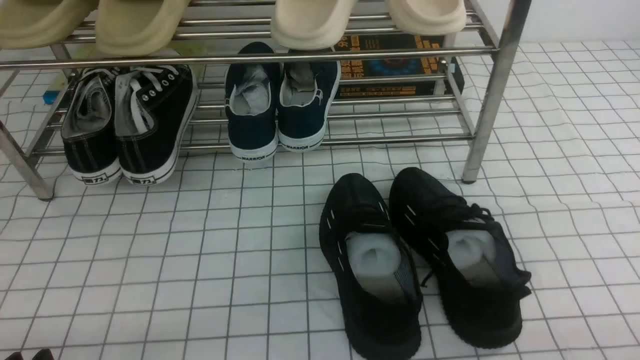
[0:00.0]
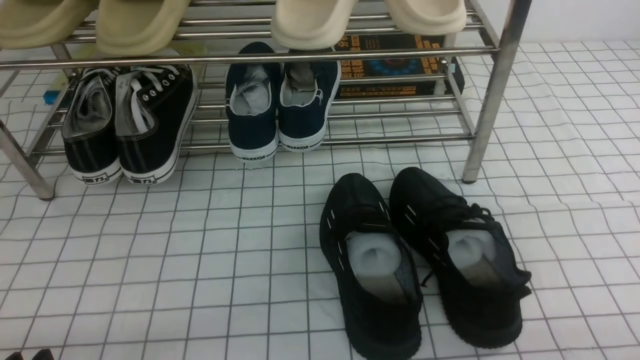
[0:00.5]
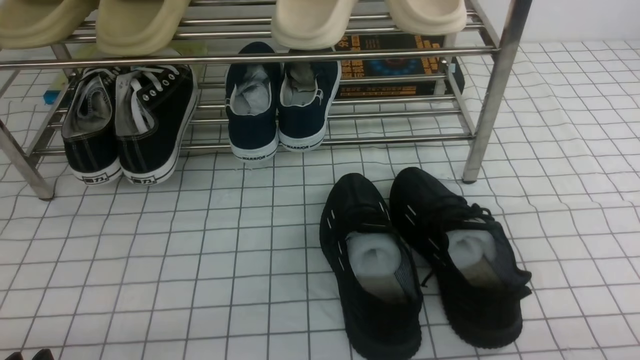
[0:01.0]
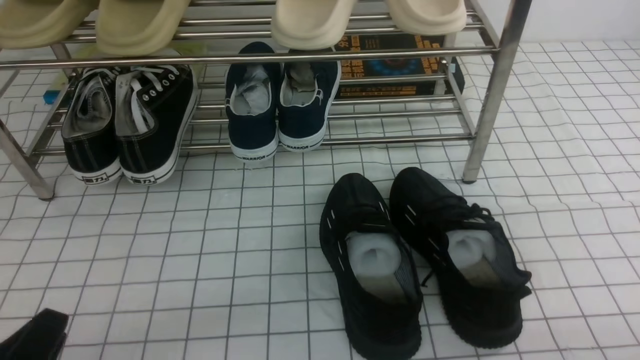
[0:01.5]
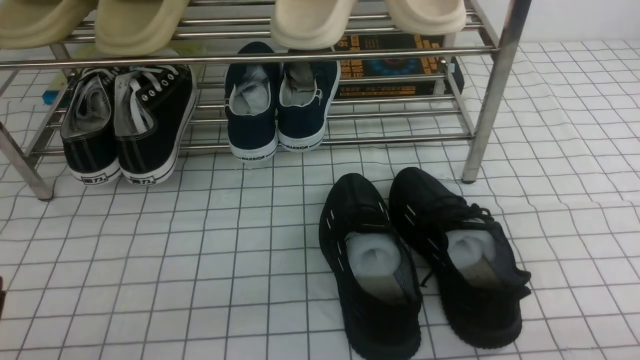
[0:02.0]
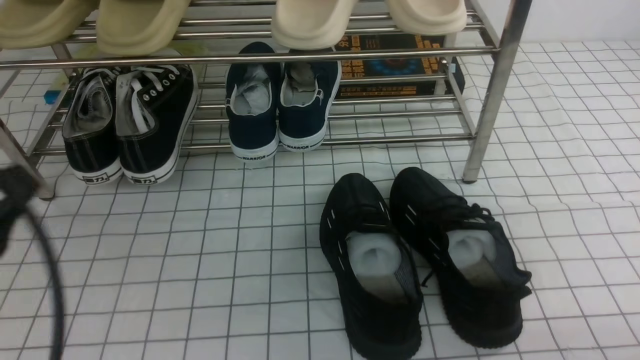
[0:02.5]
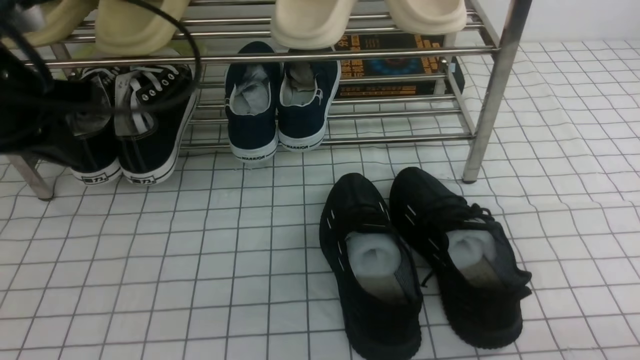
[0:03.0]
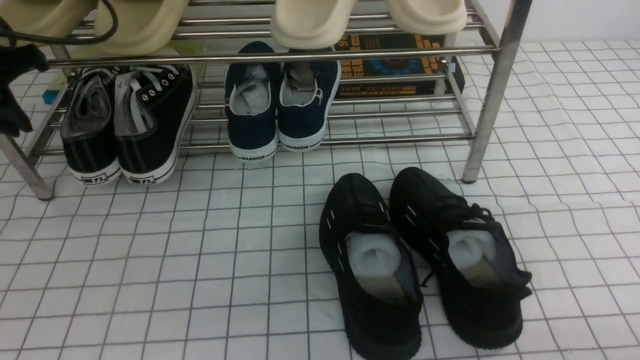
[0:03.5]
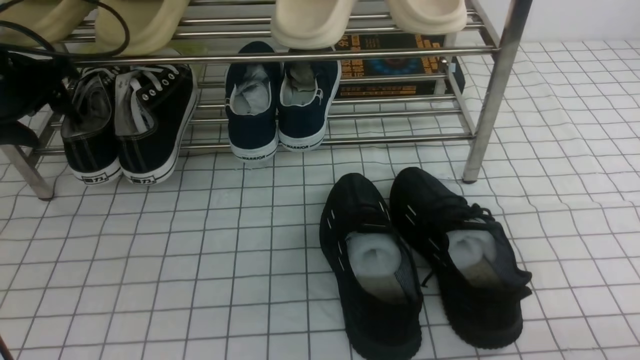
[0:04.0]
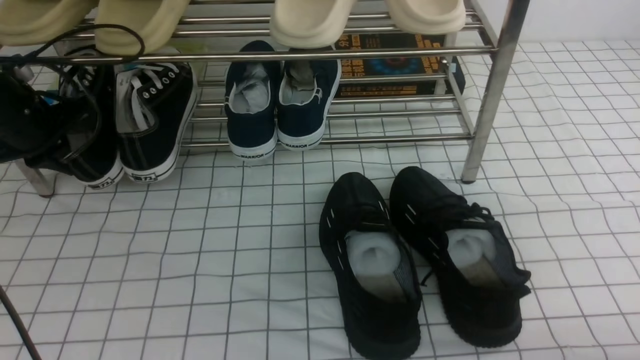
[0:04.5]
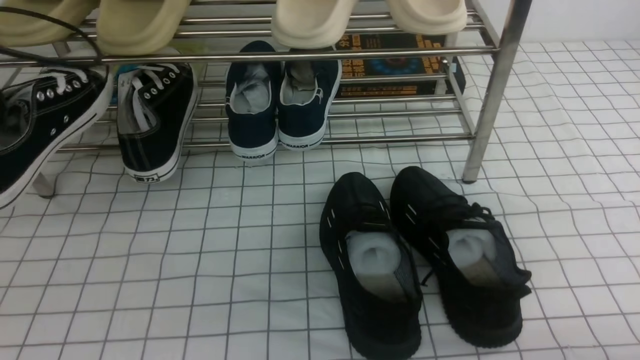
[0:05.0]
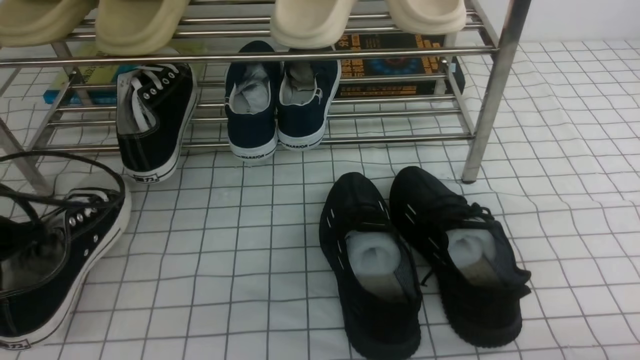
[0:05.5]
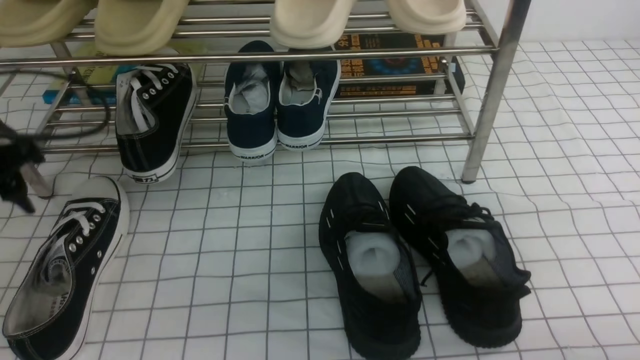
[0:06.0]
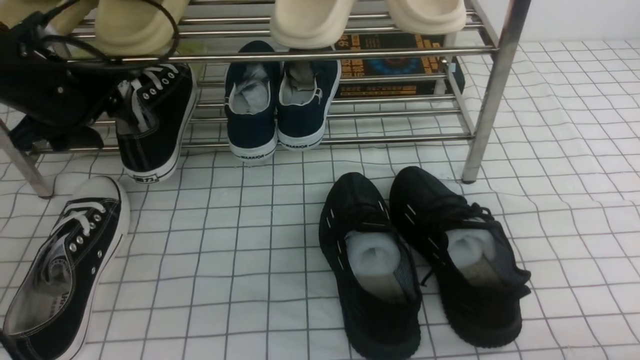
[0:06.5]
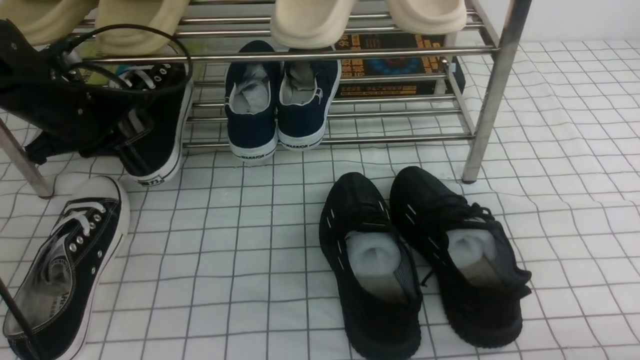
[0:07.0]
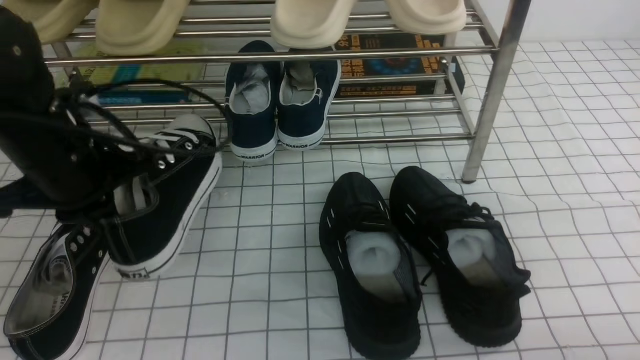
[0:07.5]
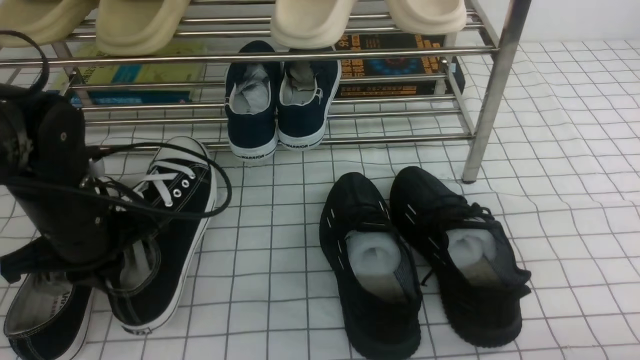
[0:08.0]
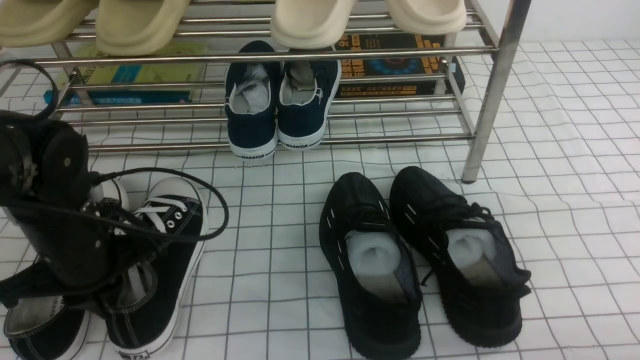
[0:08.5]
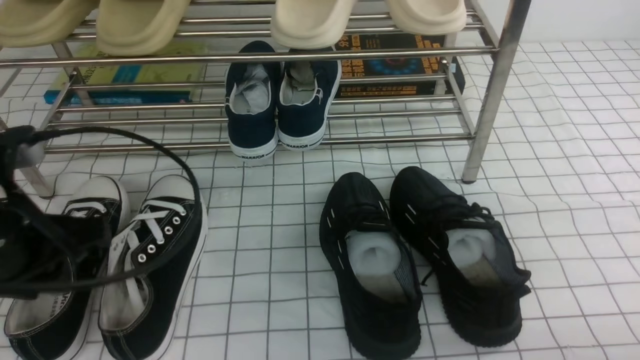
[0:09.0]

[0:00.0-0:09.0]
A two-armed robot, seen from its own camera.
Step, 0:00.0 to 0:04.0: use the left arm to clamp a shoe on the left side of the shoe rack.
Step, 0:04.5 to 0:05.5: Use your left arm to remove the clamped shoe from the shoe rack and put it down.
Step, 0:06.0 to 0:06.5: use the left arm to clamp a shoe on the left side of the shoe rack.
Step, 0:07.5 to 0:08.5: Use your left arm to remove the clamped shoe from the shoe rack and put it down.
0:02.0 to 0:04.5: The left gripper travels forward by about 35 cm, and opens, then closes again.
0:04.5 to 0:07.0: The left gripper goes about 5 cm to the right, reaches some 15 cm backward, then returns, and opens, then closes once more.
0:07.0 to 0:09.0: The left gripper is displaced backward by about 20 cm.

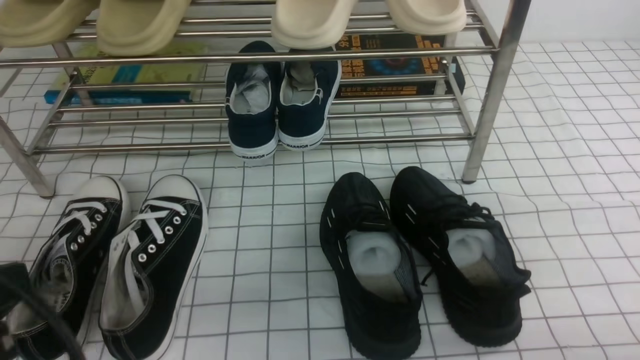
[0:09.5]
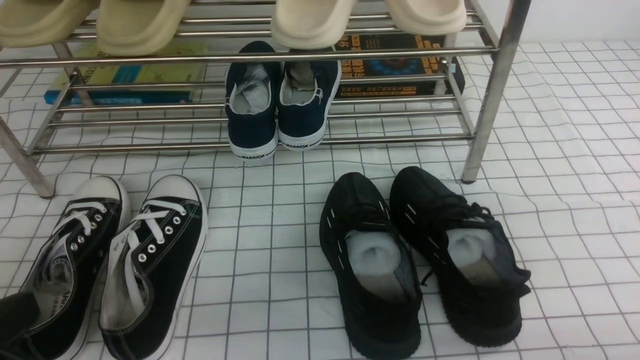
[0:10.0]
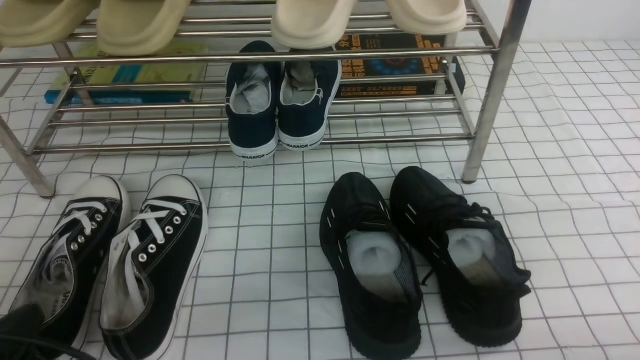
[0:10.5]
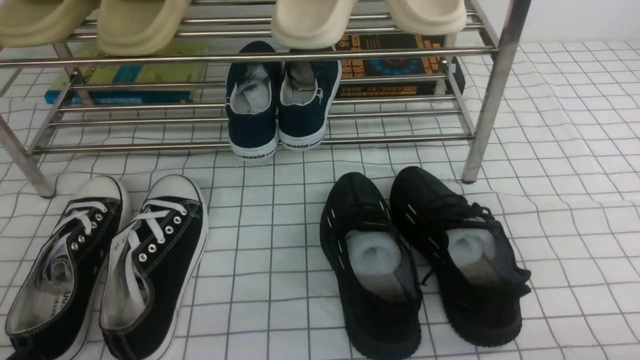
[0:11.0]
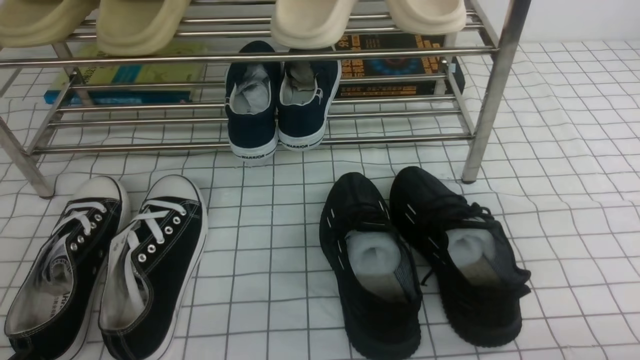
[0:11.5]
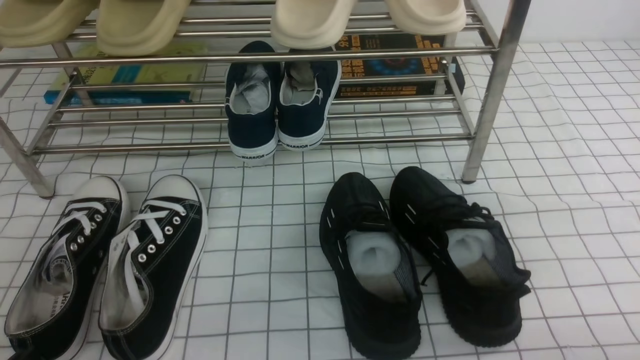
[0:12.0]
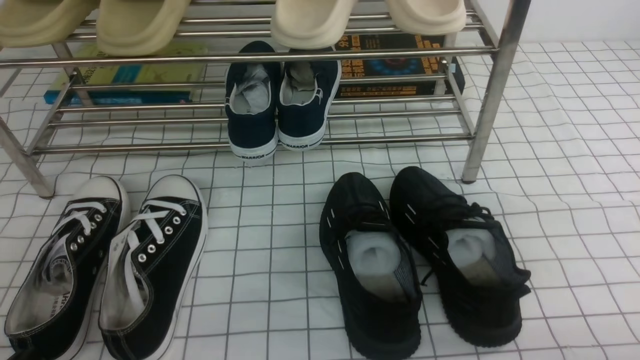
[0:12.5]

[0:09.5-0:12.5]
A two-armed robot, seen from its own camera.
0:09.5 to 0:11.0: The left gripper moves downward, about 15 cm.
0:11.0 to 0:12.5: Both grippers stay about where they are.
